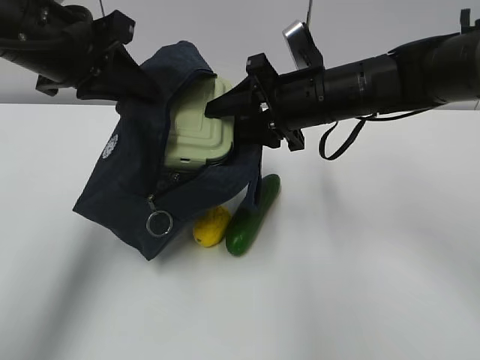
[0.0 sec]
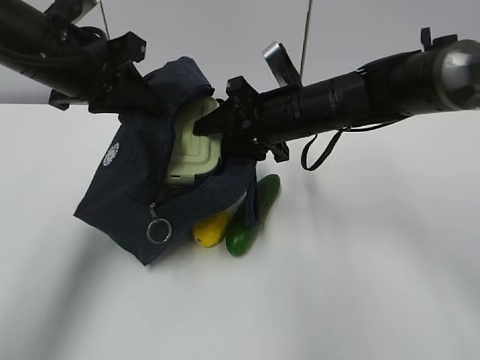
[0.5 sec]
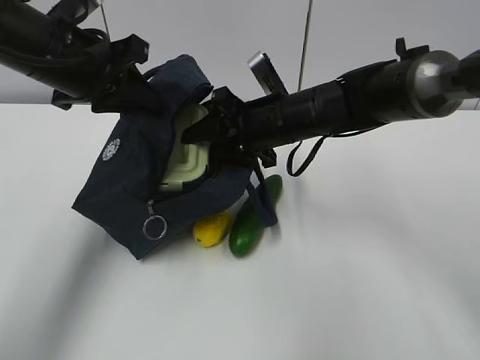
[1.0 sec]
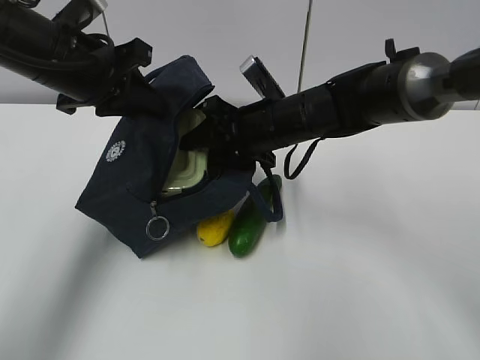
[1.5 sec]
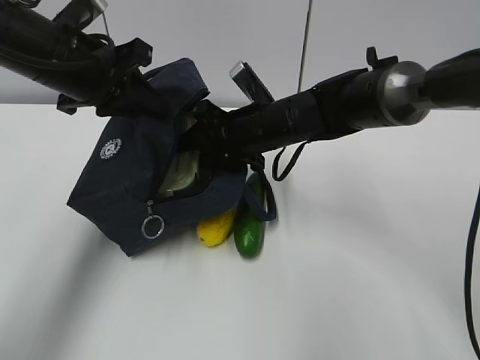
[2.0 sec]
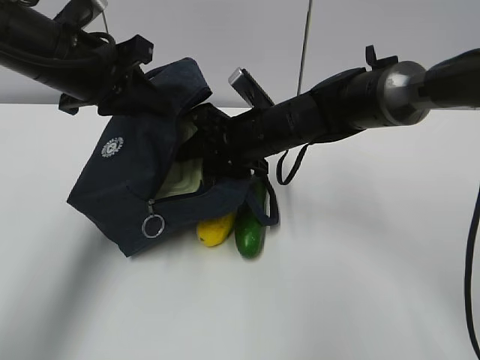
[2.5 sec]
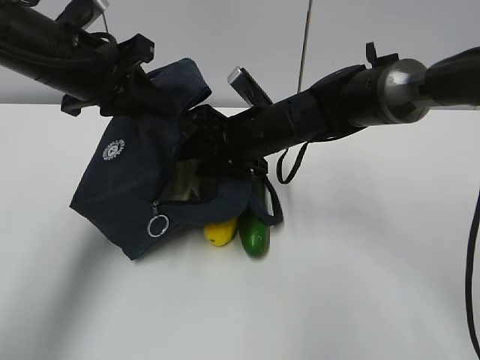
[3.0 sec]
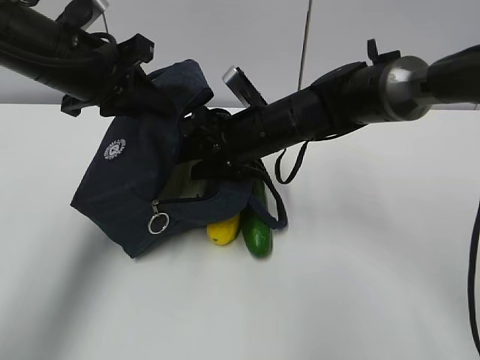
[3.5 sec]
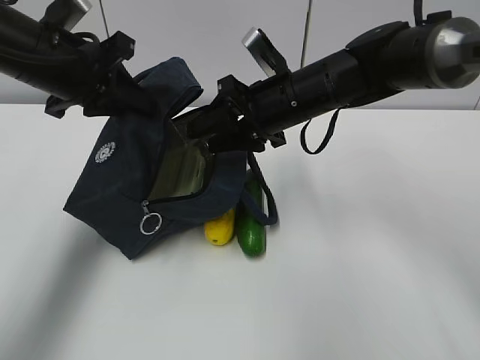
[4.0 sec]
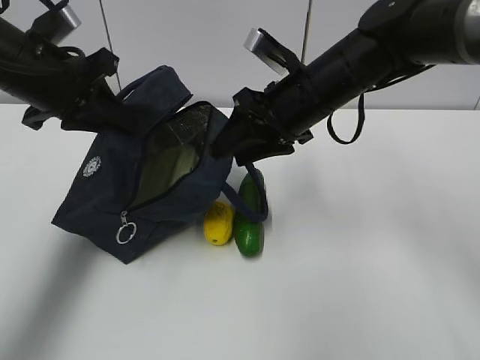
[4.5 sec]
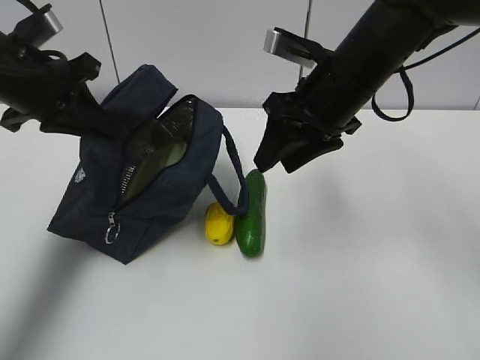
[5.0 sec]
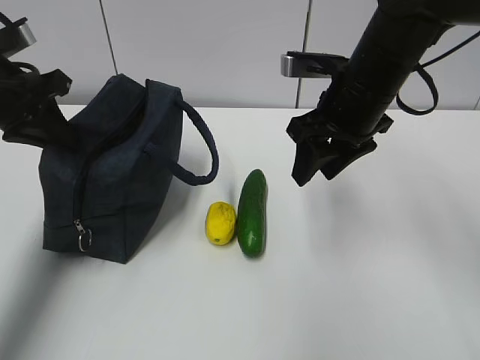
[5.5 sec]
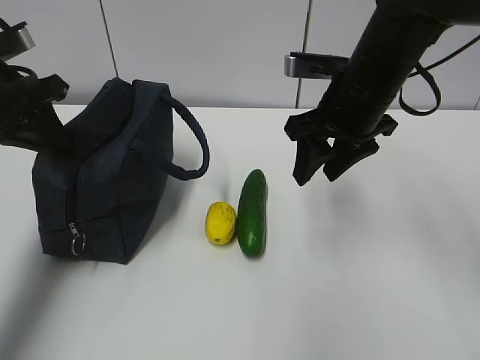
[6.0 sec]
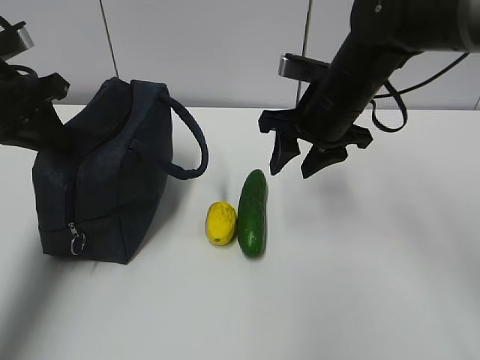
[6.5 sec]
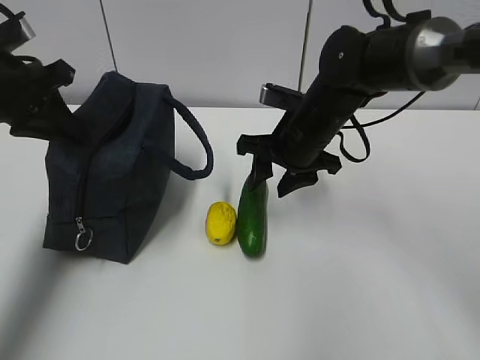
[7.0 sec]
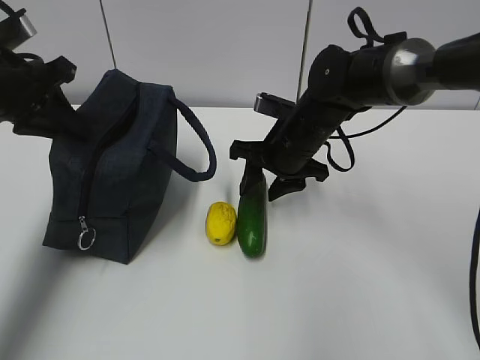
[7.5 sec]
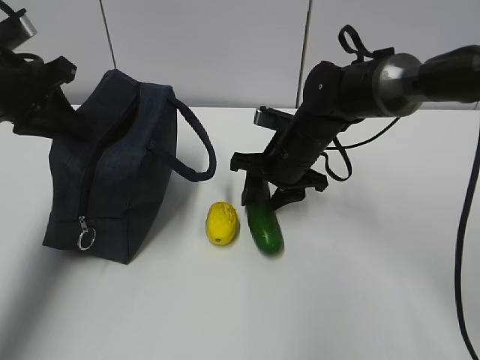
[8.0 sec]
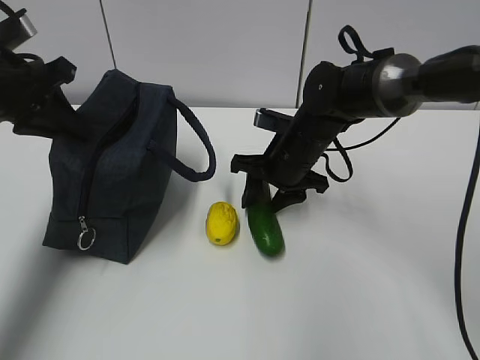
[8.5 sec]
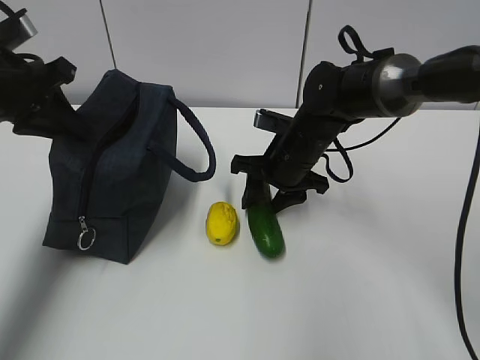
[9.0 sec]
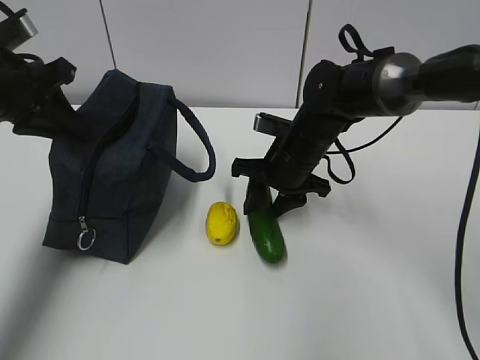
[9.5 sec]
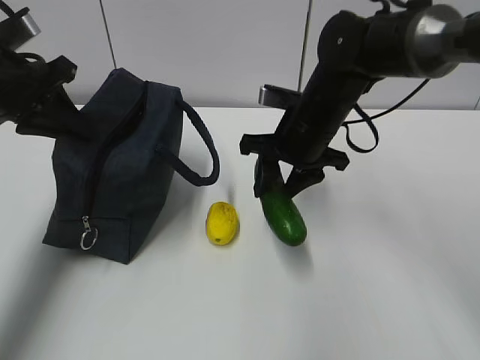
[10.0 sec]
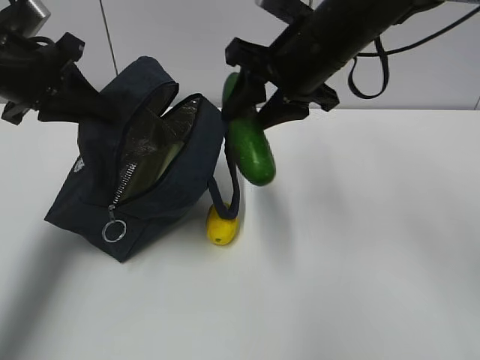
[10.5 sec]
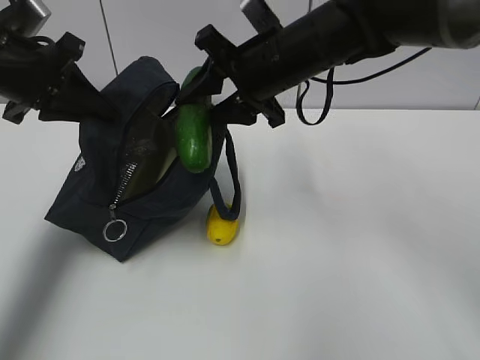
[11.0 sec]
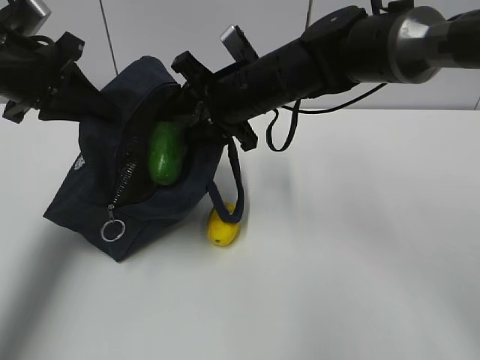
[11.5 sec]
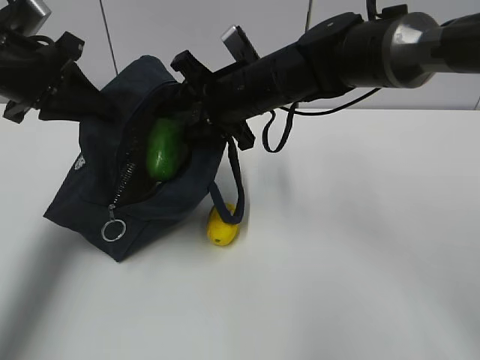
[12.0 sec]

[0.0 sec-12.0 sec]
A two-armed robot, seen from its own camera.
Step, 0.0 sec to 2.5 sec: Grab the cucumber with your right hand.
Step, 3.0 sec to 5.0 sec: Place it into the bag with your right hand.
Step, 5.5 sec to 9.0 sec: Grab the lemon with your right hand.
0.0 sec to 2.0 sec: The right gripper travels downward and to the left by approximately 10 cm.
2.0 sec to 4.0 sec: The right gripper moves about 5 cm.
4.0 sec to 6.0 sec: The left gripper is displaced to the left by approximately 5 cm, while the right gripper travels to the right by about 5 cm.
6.0 sec to 8.0 sec: The right gripper shifts approximately 15 cm downward and forward.
8.0 sec to 10.0 sec: The right gripper goes some 5 cm upward.
10.0 sec to 12.0 sec: The right gripper goes about 5 cm to the left.

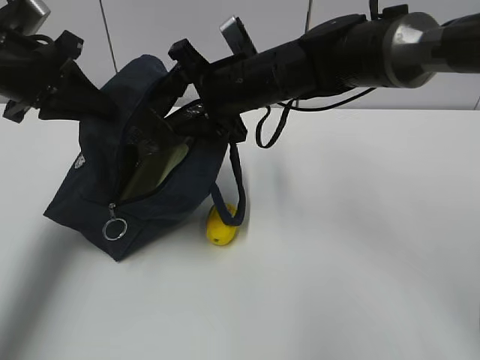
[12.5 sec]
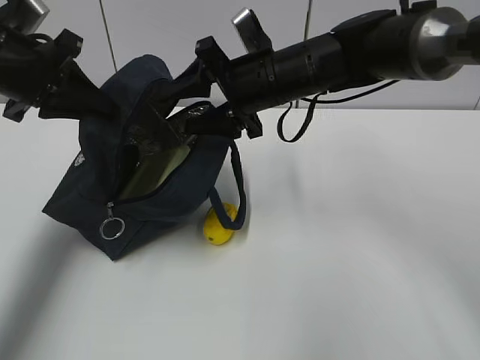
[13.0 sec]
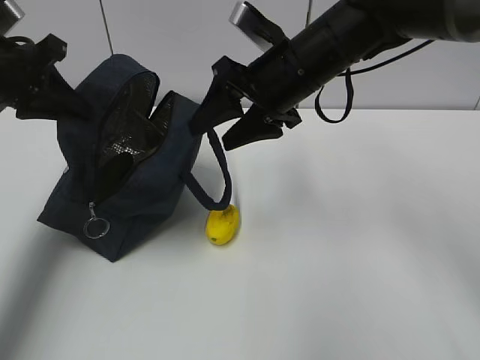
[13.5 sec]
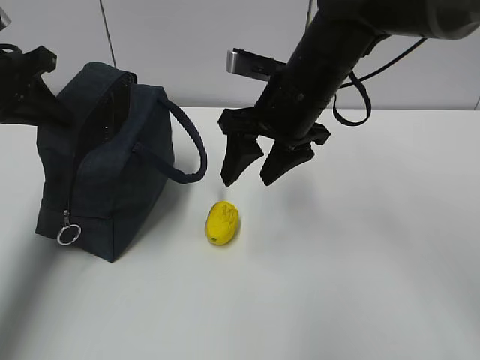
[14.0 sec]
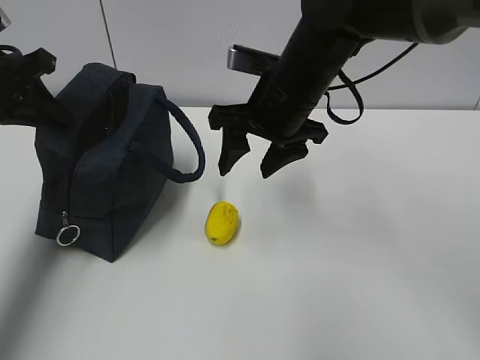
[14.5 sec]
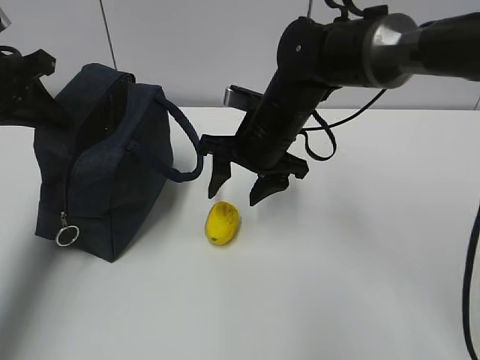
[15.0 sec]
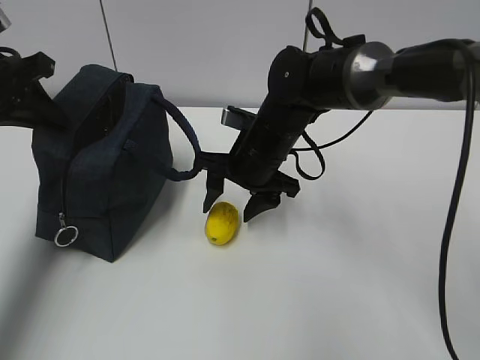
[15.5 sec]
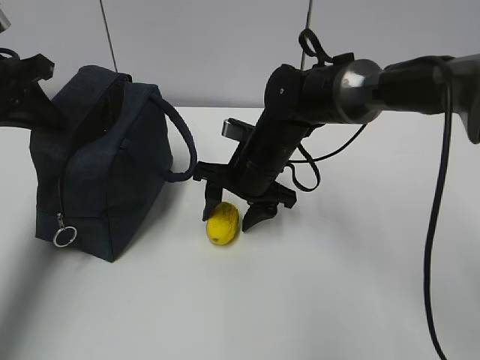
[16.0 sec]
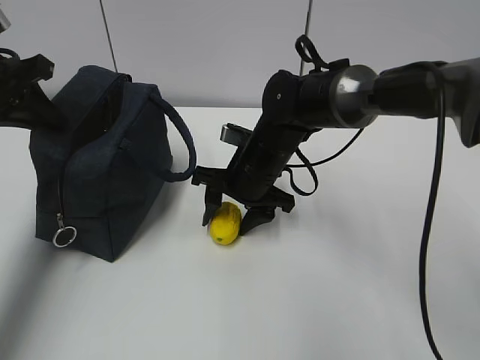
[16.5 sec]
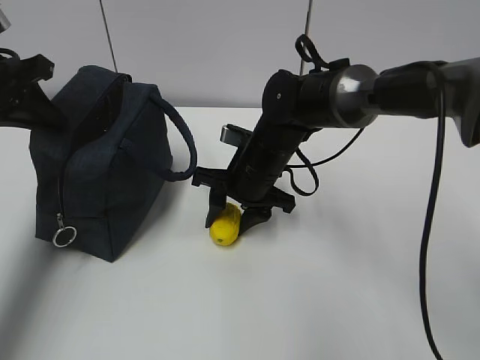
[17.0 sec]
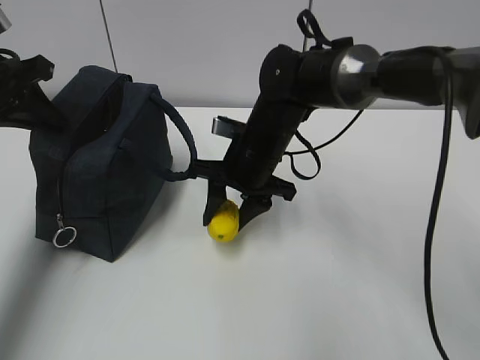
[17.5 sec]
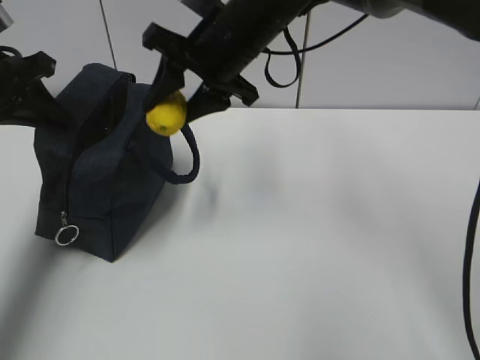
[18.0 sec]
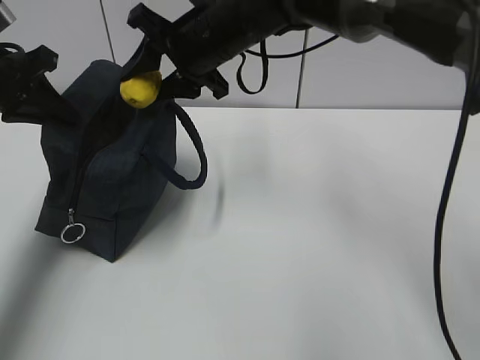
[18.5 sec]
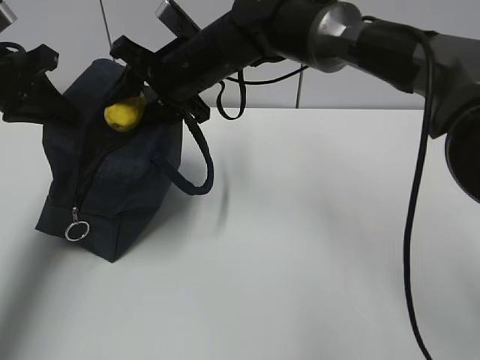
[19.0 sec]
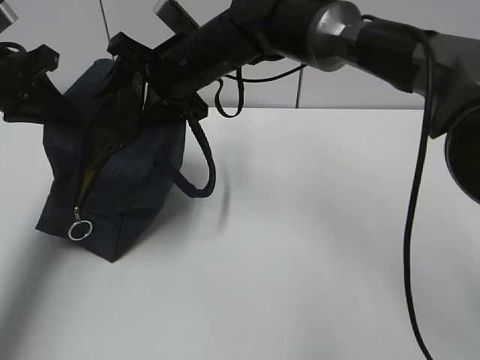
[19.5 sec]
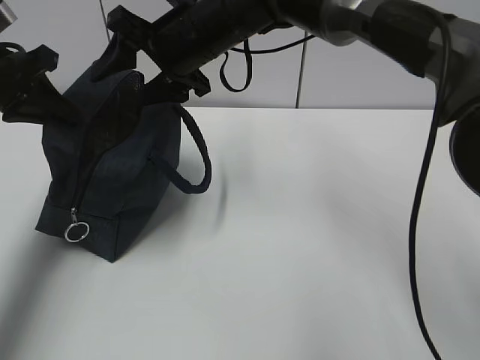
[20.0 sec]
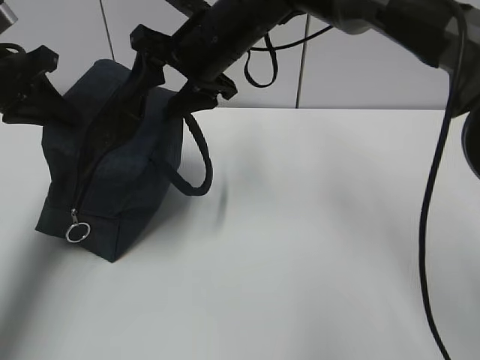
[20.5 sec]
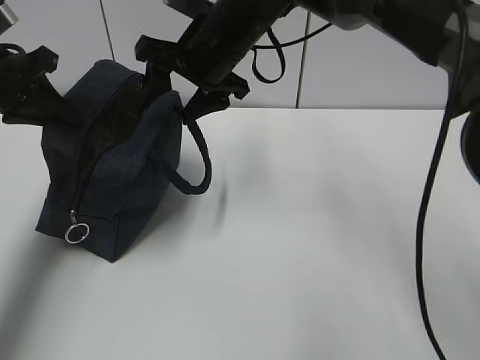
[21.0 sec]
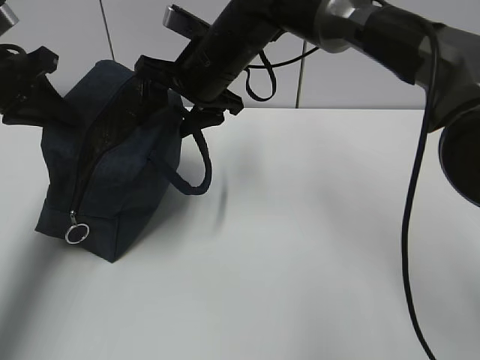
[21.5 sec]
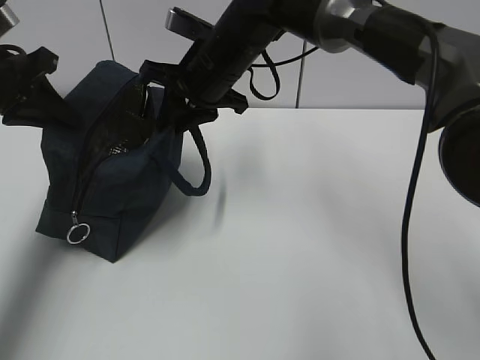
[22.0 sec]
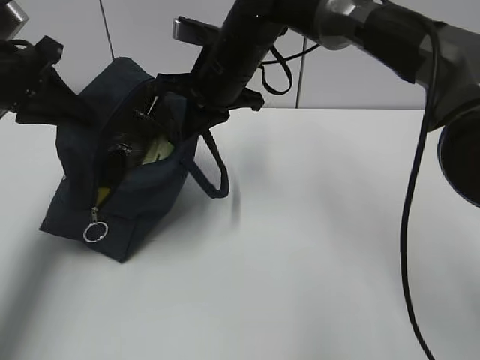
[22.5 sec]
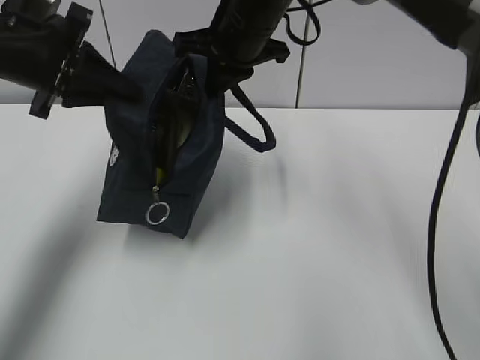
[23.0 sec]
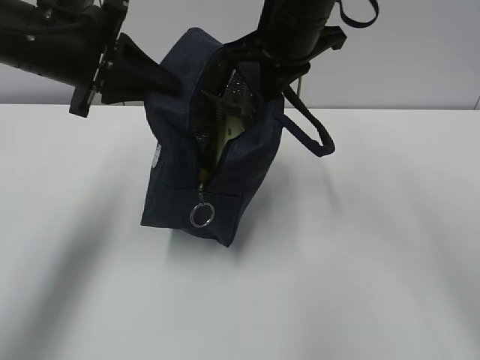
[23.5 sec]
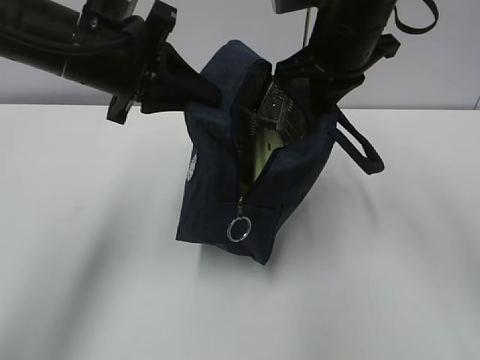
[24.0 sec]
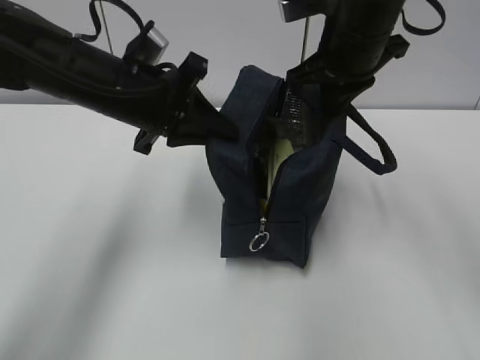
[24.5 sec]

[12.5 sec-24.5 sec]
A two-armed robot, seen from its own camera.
Step, 14.0 sec to 16.5 sec: Move the lunch bag to the right.
12.5 sec to 14.5 sec: The right gripper ends up some 5 cm from where it was.
14.5 sec to 16.5 sec: The right gripper heads downward, covering approximately 10 cm.
16.5 sec to 18.5 sec: The right gripper moves upward, about 15 cm.
18.5 sec to 20.5 sec: There are only small adjustments of the grippers.
20.5 sec to 22.5 sec: The right gripper closes up.
22.5 sec to 24.5 sec: The right gripper moves to the right and upward, about 15 cm. Meanwhile the left gripper travels to the right by some 15 cm.

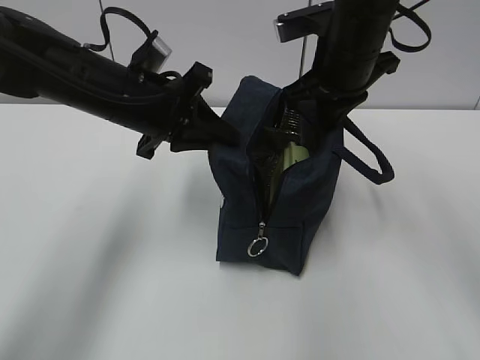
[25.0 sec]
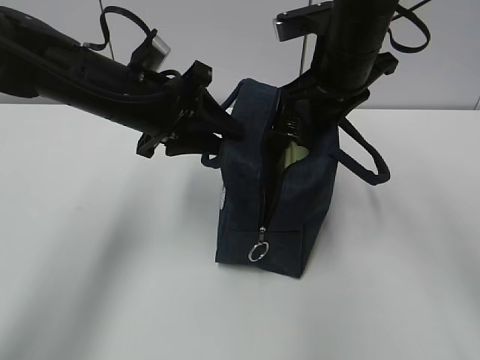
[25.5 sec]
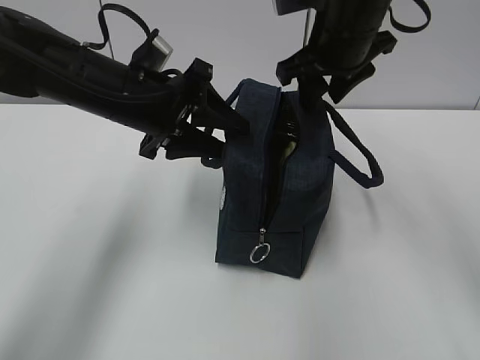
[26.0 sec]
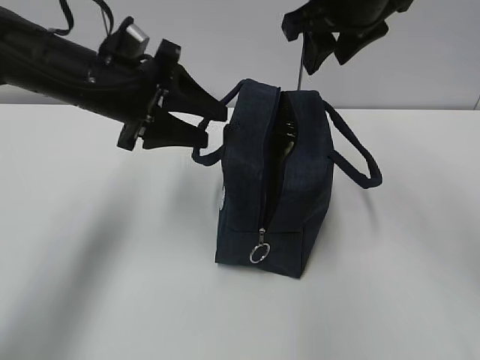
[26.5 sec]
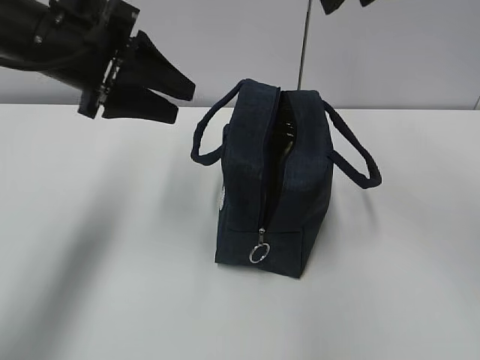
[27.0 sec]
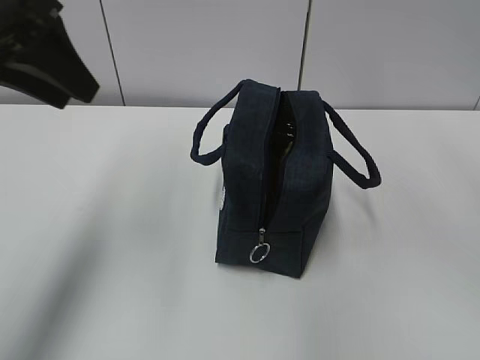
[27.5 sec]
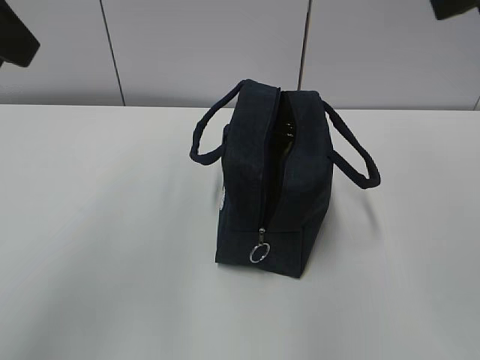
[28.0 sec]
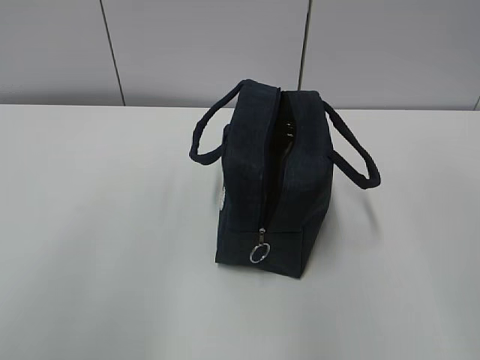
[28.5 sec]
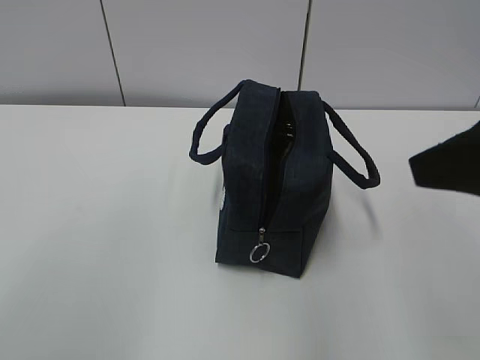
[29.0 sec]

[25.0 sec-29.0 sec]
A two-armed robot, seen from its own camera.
25.0 sec to 27.0 sec: The left gripper heads upward and to the left, covering roughly 10 cm, and opens; the right gripper travels upward by roughly 15 cm, and opens.
27.0 sec to 29.0 sec: The right gripper goes approximately 20 cm backward. Meanwhile the left gripper shifts about 30 cm backward and upward.
